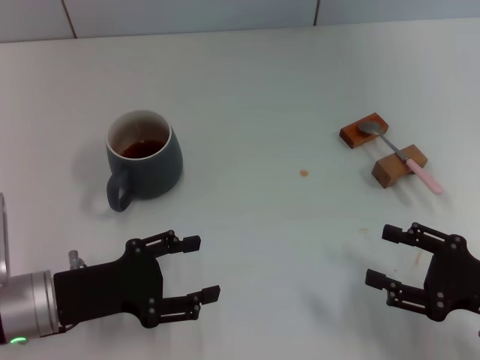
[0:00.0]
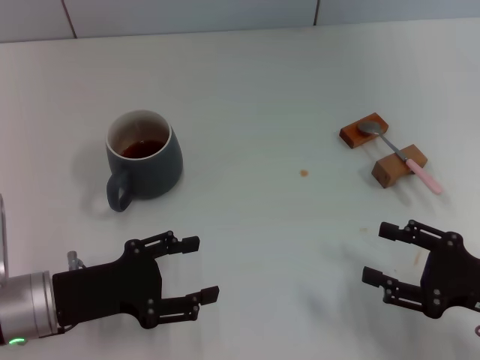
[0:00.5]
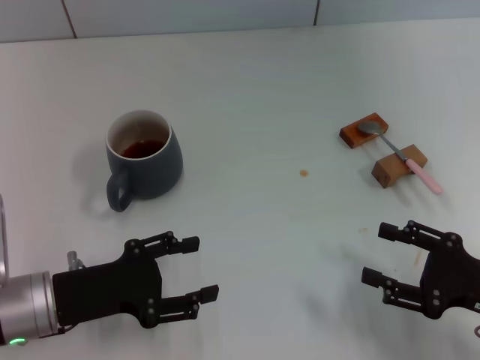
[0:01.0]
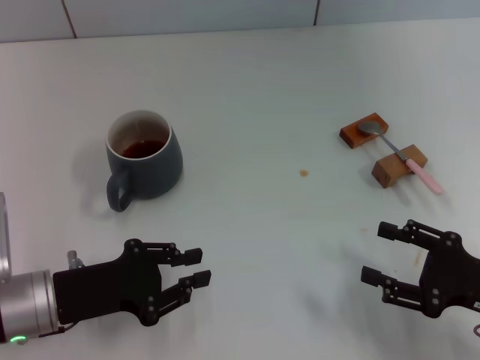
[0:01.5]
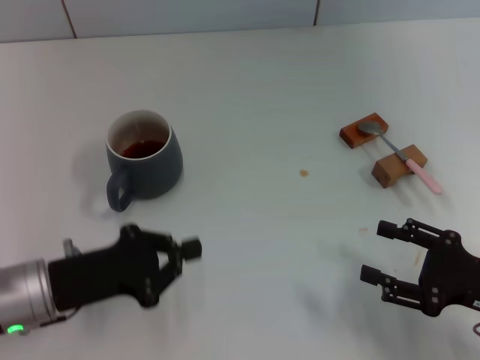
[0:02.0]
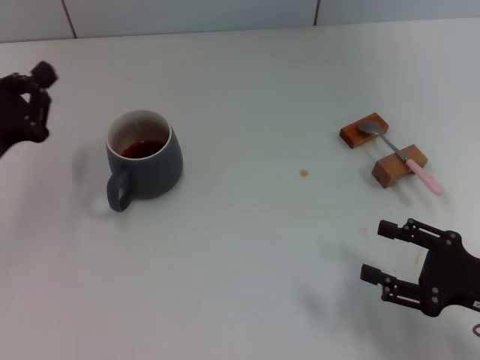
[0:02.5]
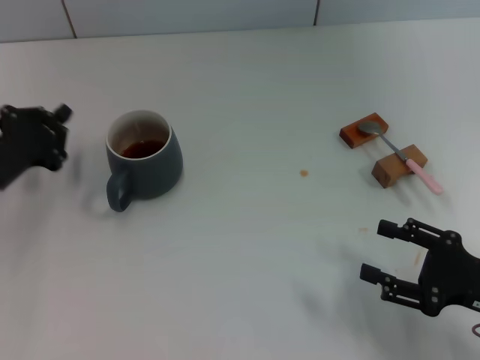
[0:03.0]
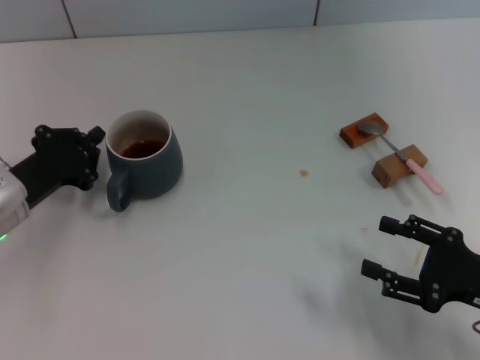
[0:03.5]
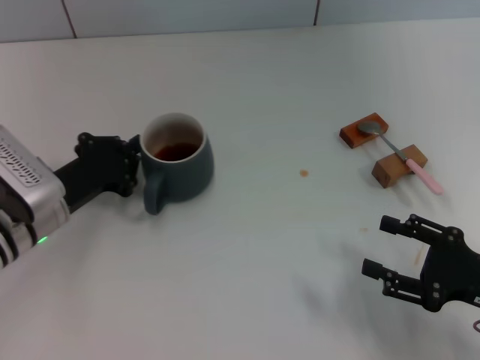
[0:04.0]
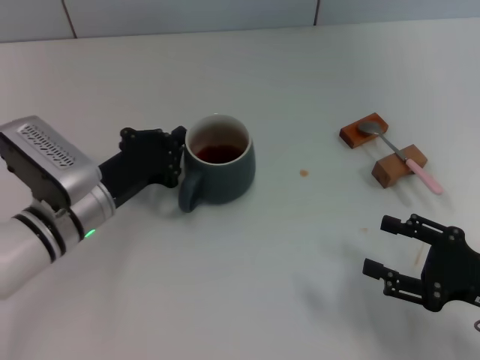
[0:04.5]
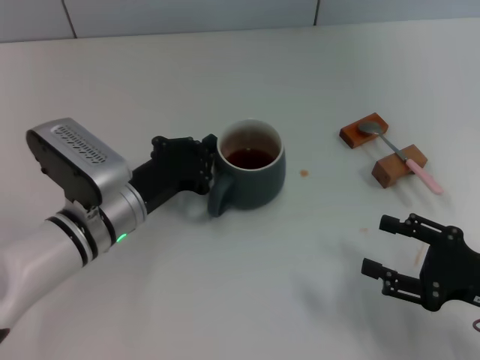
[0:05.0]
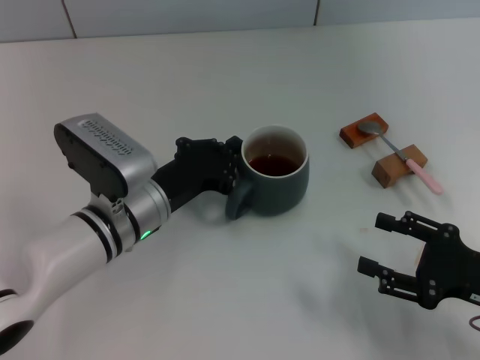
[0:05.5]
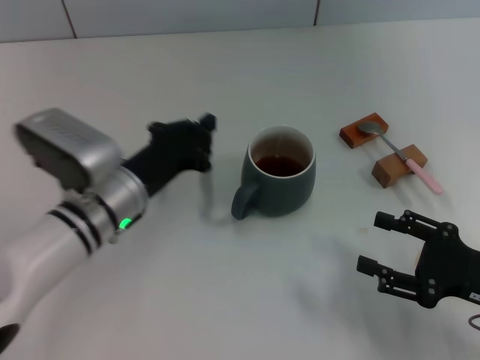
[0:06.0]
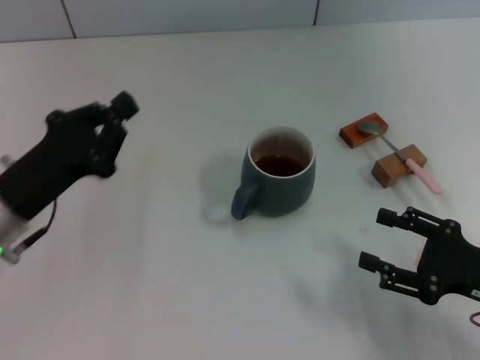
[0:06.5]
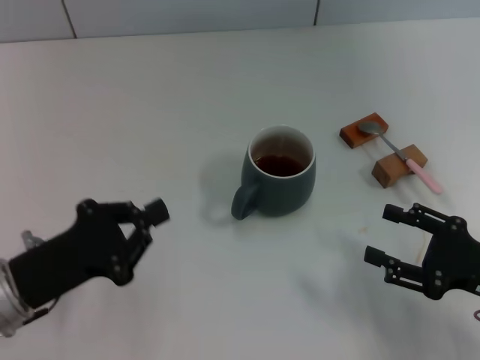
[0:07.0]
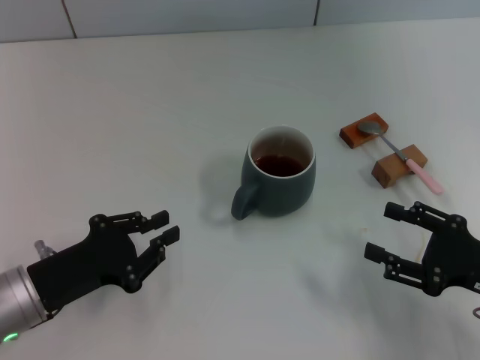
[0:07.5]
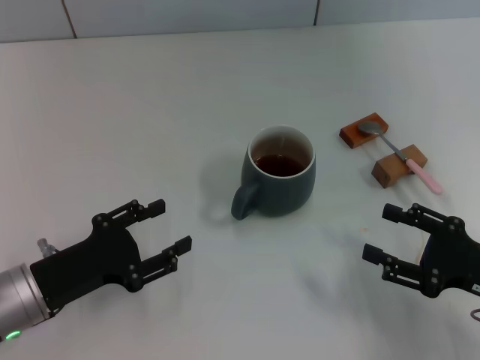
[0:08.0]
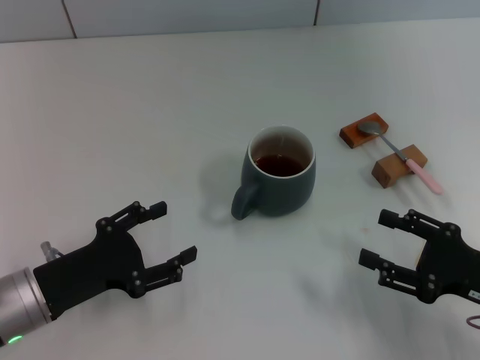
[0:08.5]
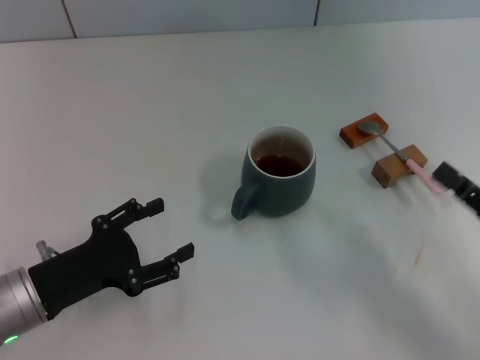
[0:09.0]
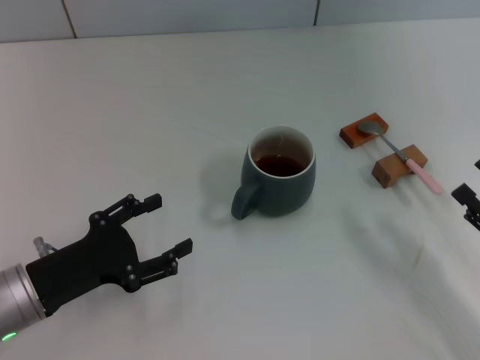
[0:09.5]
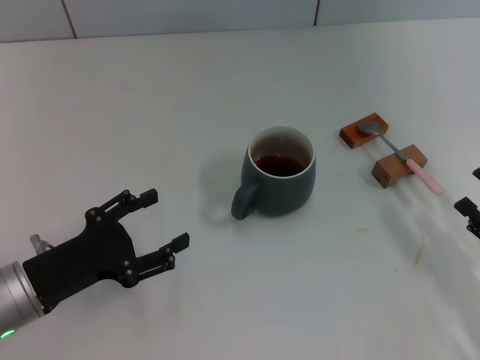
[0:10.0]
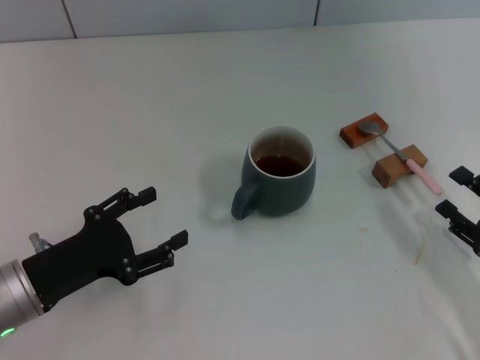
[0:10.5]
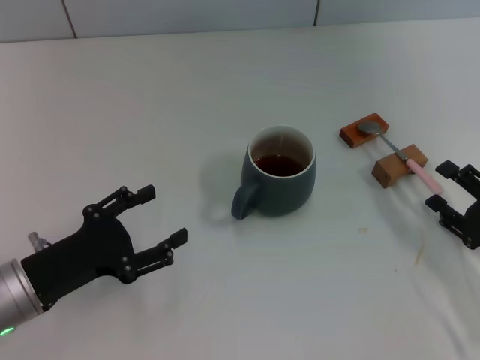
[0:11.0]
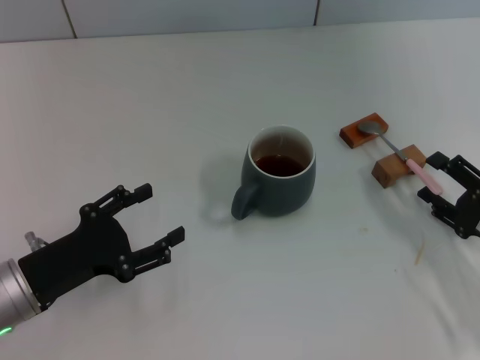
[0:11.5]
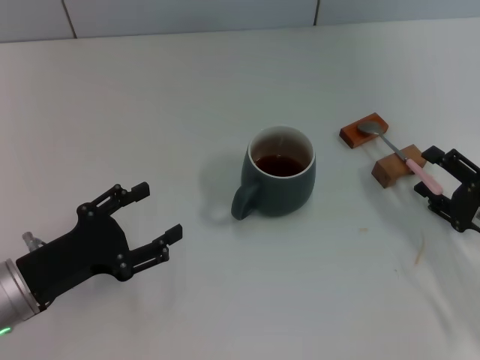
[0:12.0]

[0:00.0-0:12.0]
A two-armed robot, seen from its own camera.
Task of the whole recording: Move the grey cup to the center, lift the pink spoon, stir it three times in the cup, and put the spoon into the cup.
Step, 0:00.0 to 0:06.0: Move the cup with coffee to the center of view with the left gripper.
0:00.0 to 0:02.0: The left gripper closes.
0:02.0 to 0:04.0: The left gripper moves forward, approximately 10 cm.
0:04.0 to 0:06.0: The left gripper travels to the right by some 10 cm.
0:06.0 to 0:08.0: The left gripper travels to the left and backward by about 15 cm, and opens.
0:08.0 to 0:10.0: The left gripper opens its fingers.
0:10.0 to 0:12.0: The right gripper heads forward, covering some 5 cm.

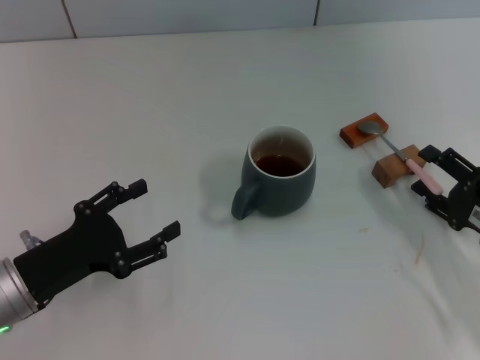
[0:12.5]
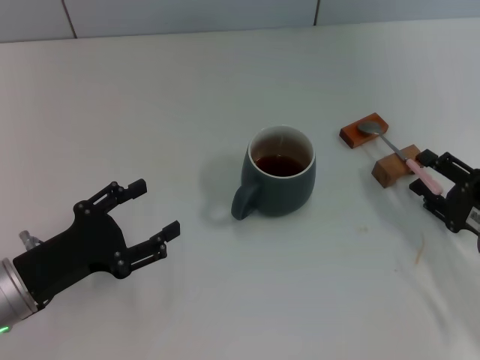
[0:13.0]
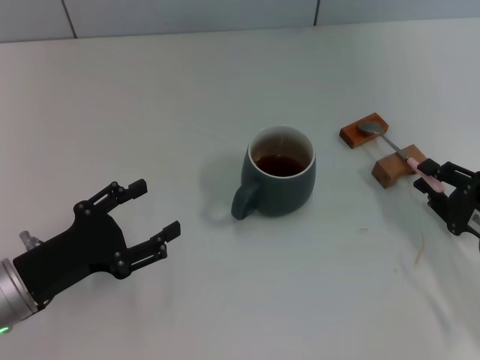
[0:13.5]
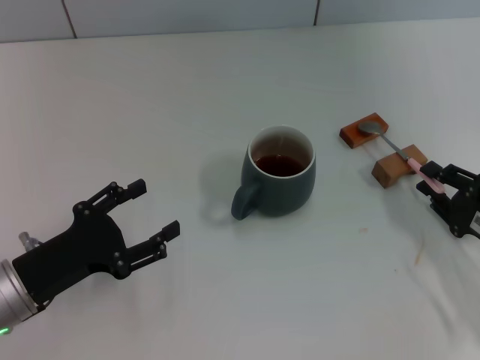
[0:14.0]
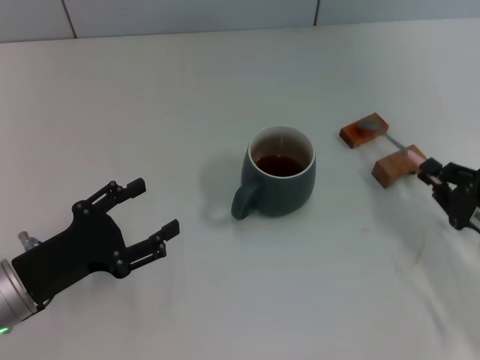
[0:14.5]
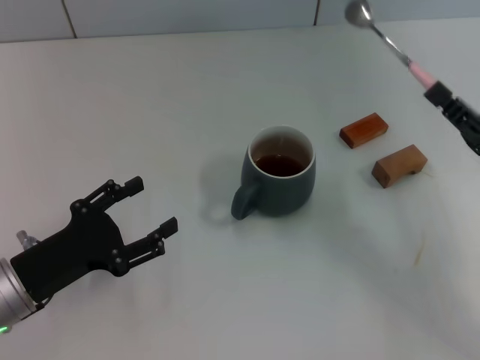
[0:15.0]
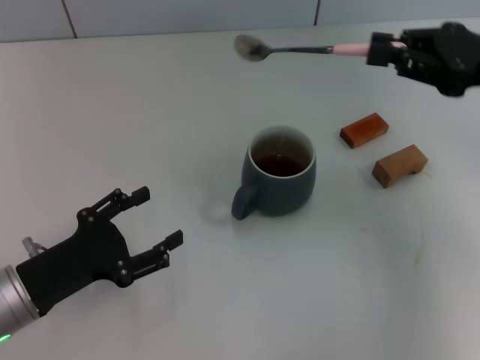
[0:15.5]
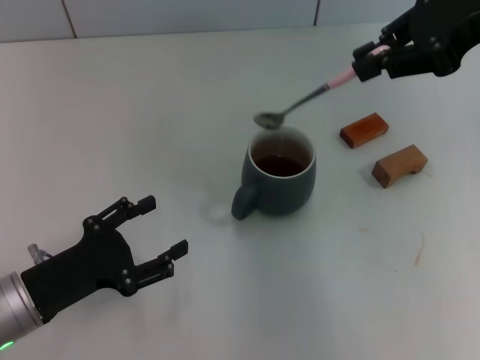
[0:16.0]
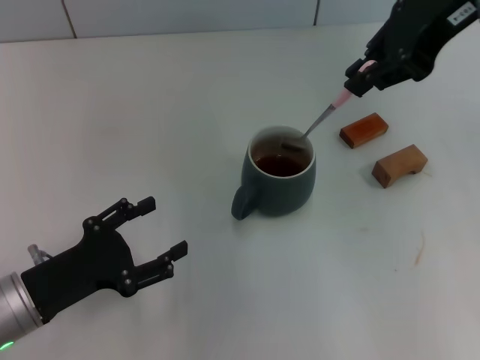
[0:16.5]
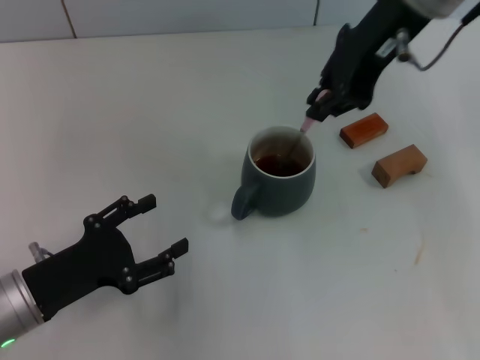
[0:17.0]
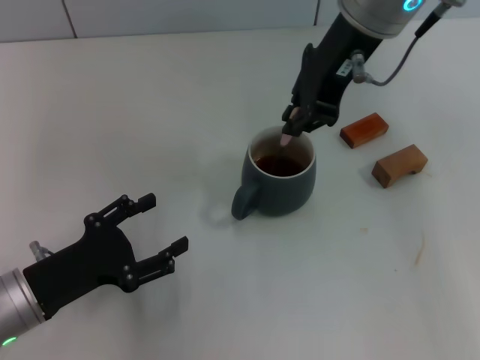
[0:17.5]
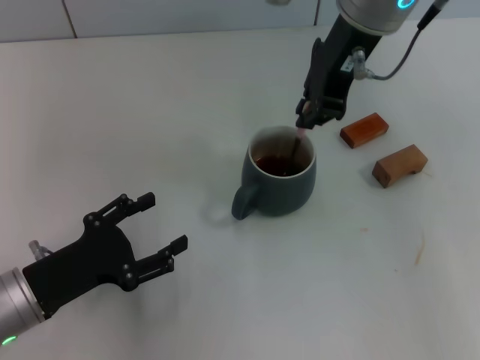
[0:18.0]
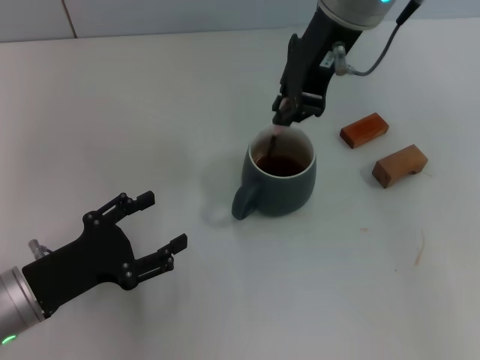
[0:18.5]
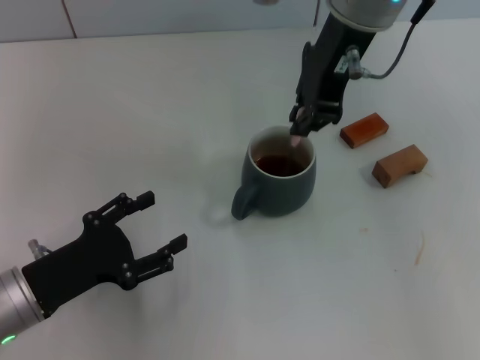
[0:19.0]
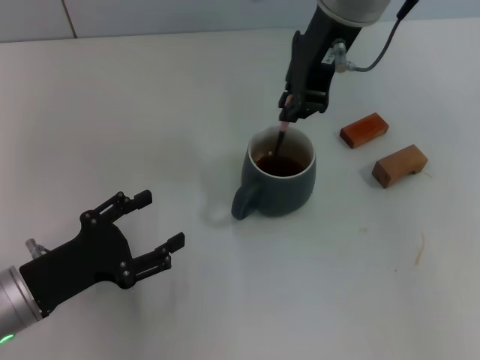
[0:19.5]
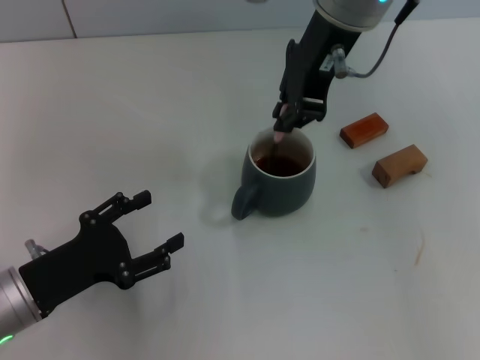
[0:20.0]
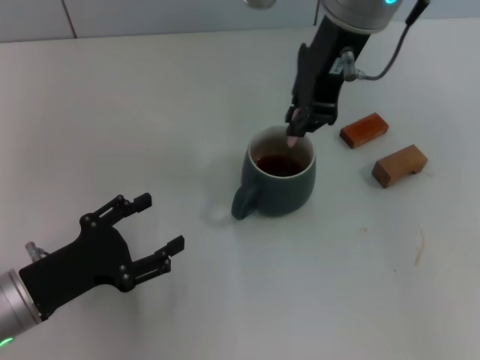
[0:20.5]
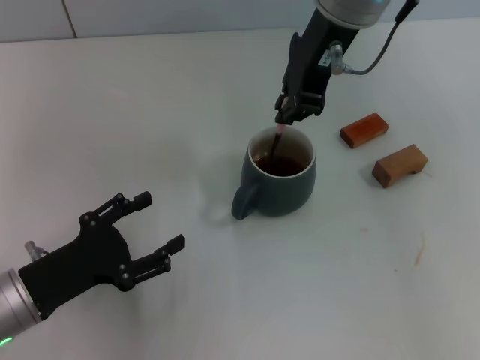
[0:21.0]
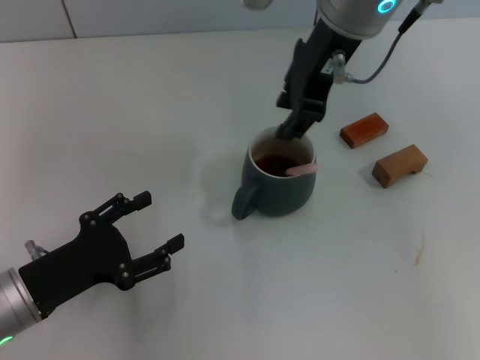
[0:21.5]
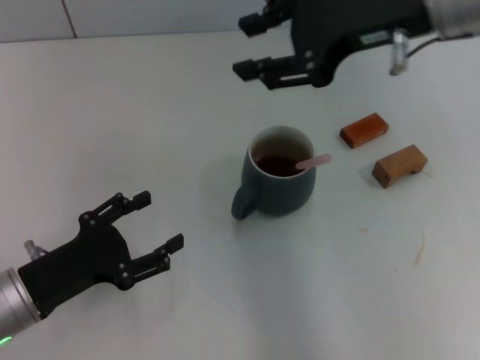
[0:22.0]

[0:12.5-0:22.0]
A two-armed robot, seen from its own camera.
Task of the whole recording: Move the grey cup to the center, lift the pink spoon, stir it three times in the cup, and put the spoon into the cup.
Step, 0:12.5 to 0:14.5: Pick up the spoon with the right gripper.
Step, 0:15.0 to 0:21.5: Stir the coffee in the cup with the right gripper.
0:12.5 to 0:14.5: The right gripper closes its fingers.
0:14.5 to 0:16.5: The right gripper heads upward and forward, covering roughly 35 cm.
0:16.5 to 0:18.0: The right gripper is displaced to the left by roughly 10 cm.
0:18.0 to 0:20.0: The grippers make only small movements.
0:20.0 to 0:22.0: The right gripper moves to the right and backward, some 10 cm, and opens.

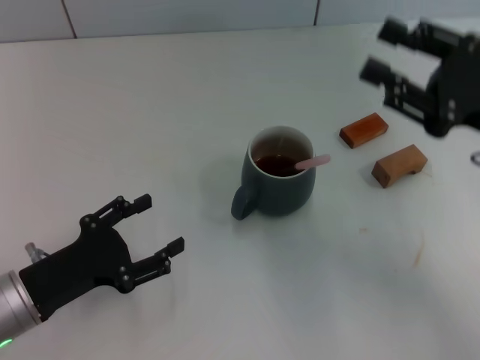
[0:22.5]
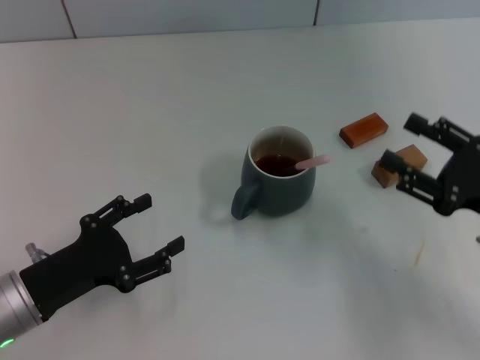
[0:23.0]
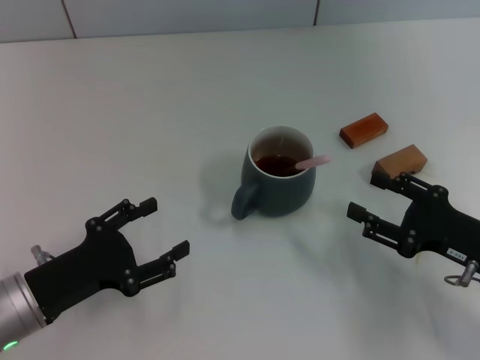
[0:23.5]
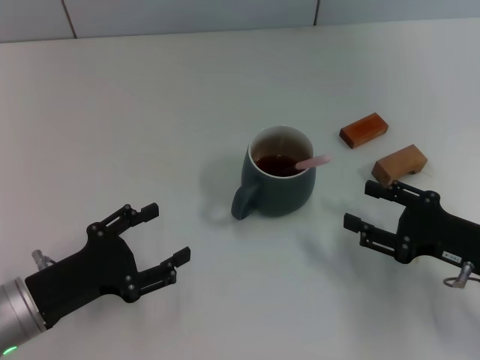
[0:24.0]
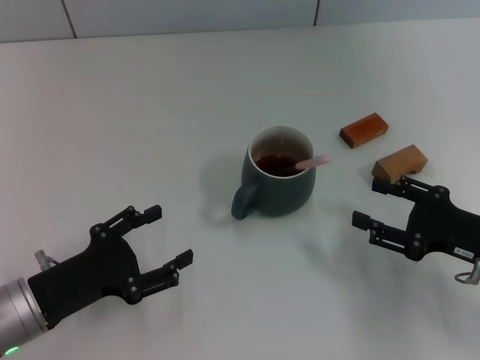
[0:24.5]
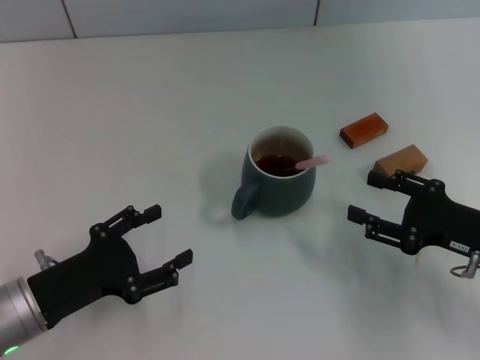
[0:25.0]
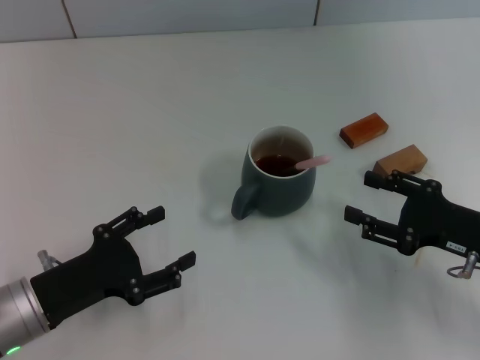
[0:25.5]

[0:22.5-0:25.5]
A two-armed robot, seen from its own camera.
Task of the whole recording: Move the grey cup to the center, lift the pink spoon, stir it three times in the cup, and put the spoon into the cup.
0:22.5 to 0:24.0: The right gripper shifts approximately 10 cm downward.
0:24.0 to 0:25.5: The grippers move only a little.
